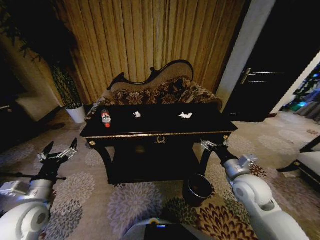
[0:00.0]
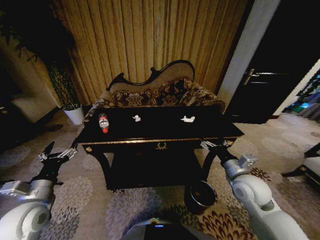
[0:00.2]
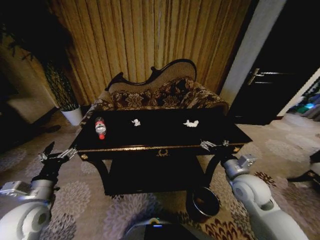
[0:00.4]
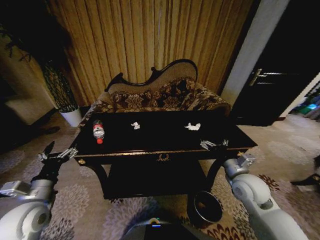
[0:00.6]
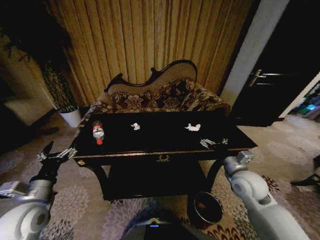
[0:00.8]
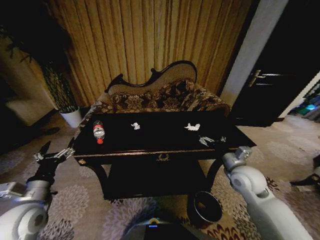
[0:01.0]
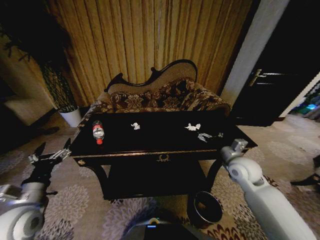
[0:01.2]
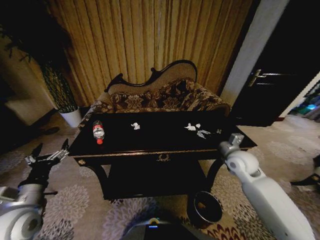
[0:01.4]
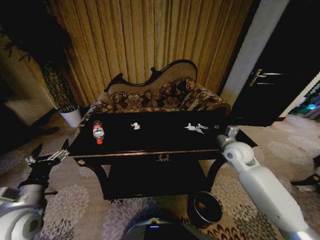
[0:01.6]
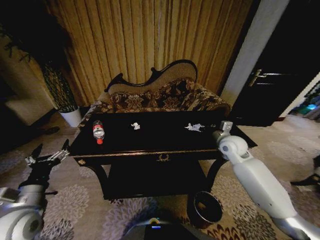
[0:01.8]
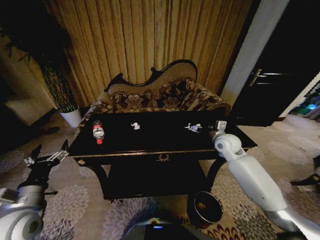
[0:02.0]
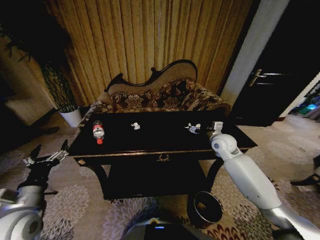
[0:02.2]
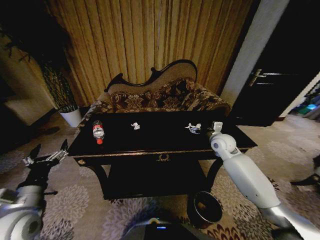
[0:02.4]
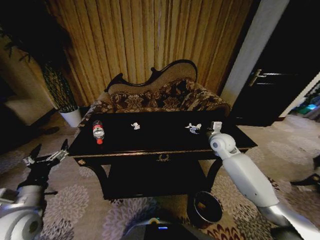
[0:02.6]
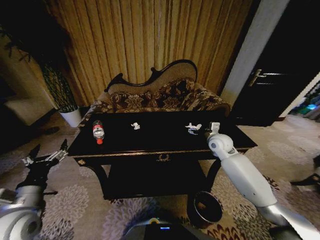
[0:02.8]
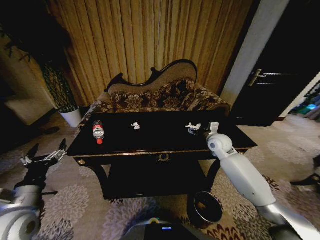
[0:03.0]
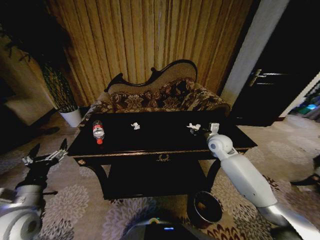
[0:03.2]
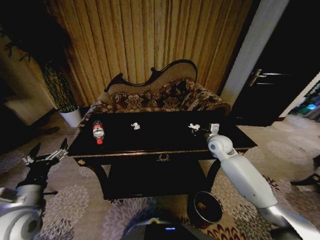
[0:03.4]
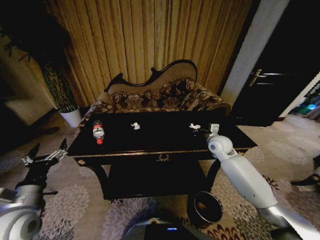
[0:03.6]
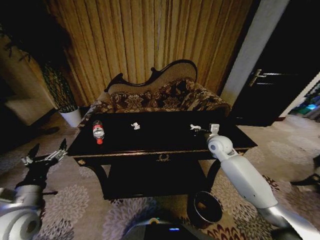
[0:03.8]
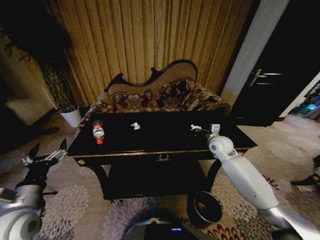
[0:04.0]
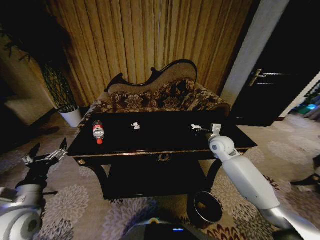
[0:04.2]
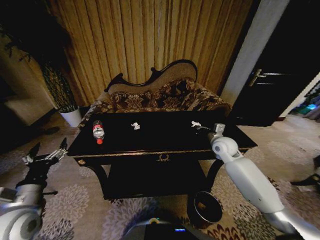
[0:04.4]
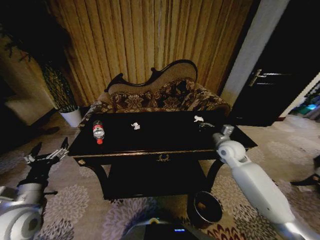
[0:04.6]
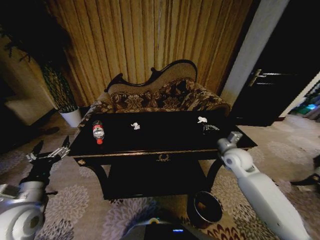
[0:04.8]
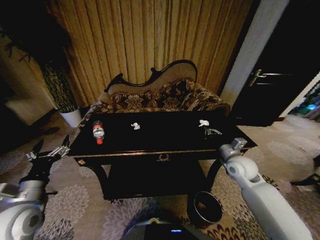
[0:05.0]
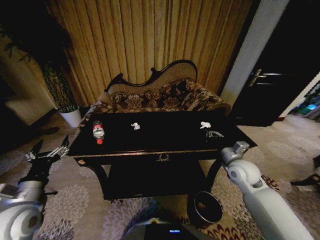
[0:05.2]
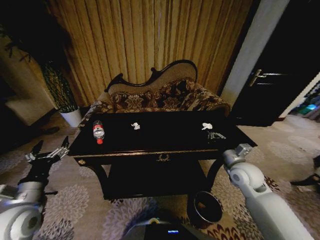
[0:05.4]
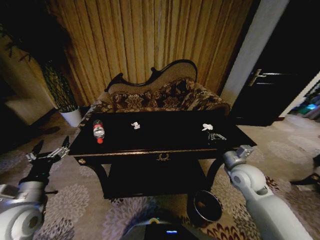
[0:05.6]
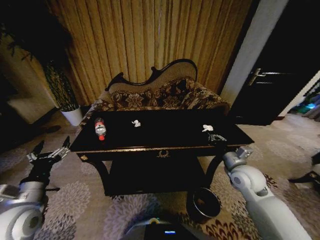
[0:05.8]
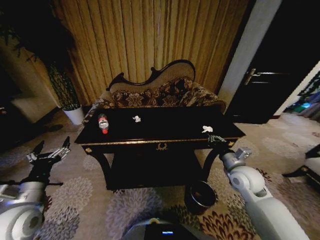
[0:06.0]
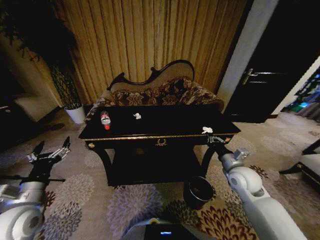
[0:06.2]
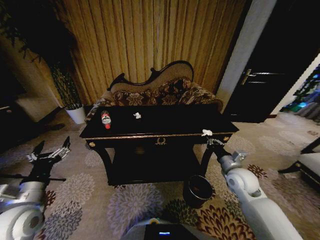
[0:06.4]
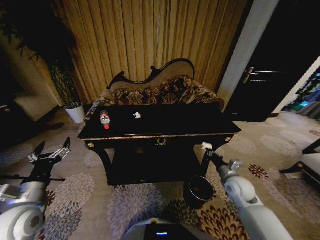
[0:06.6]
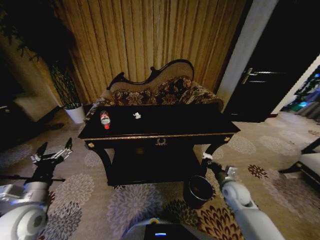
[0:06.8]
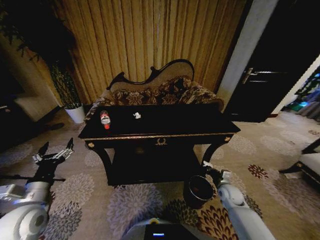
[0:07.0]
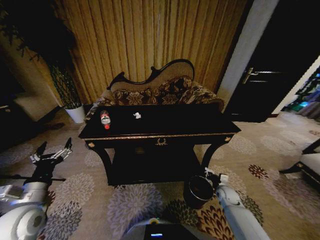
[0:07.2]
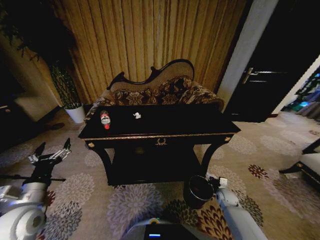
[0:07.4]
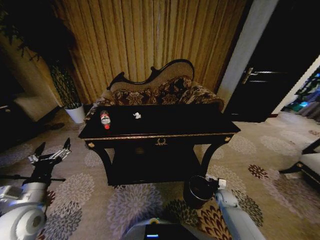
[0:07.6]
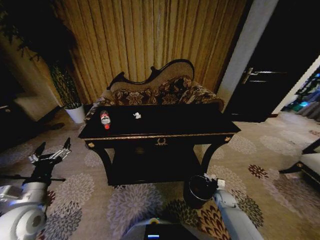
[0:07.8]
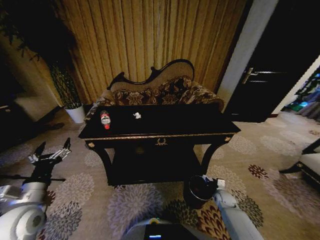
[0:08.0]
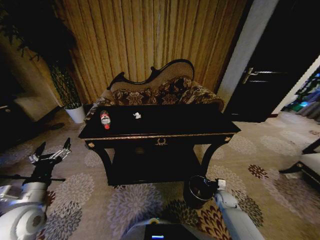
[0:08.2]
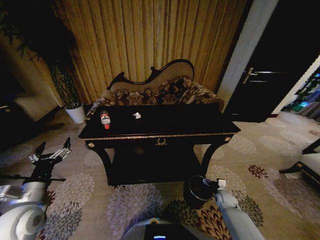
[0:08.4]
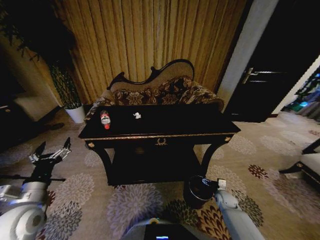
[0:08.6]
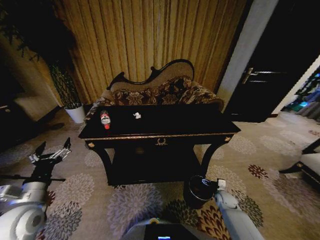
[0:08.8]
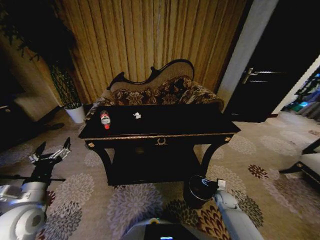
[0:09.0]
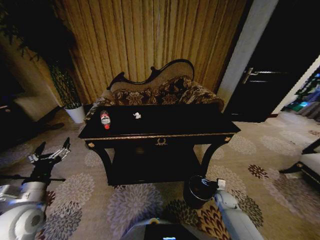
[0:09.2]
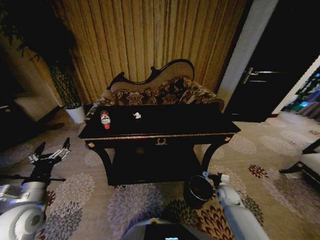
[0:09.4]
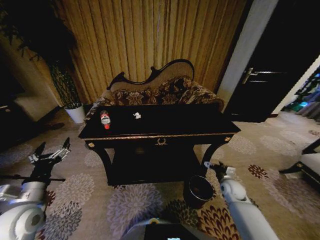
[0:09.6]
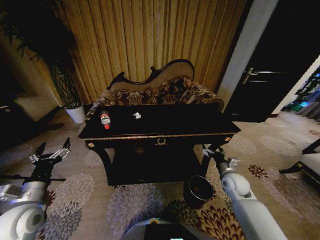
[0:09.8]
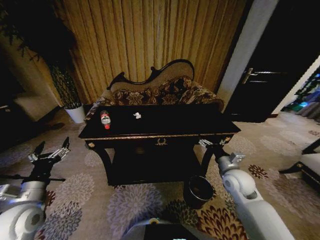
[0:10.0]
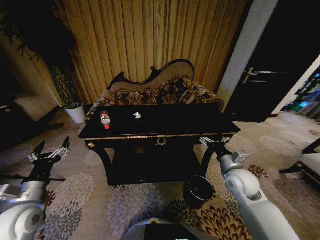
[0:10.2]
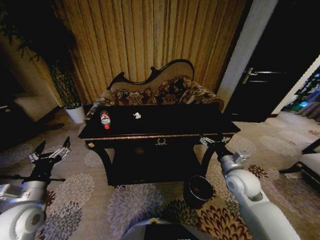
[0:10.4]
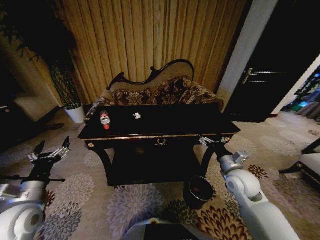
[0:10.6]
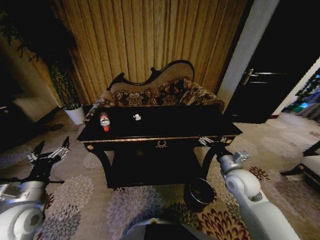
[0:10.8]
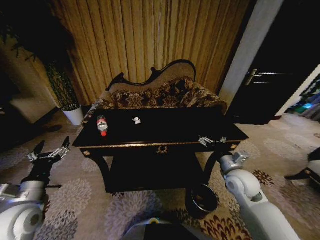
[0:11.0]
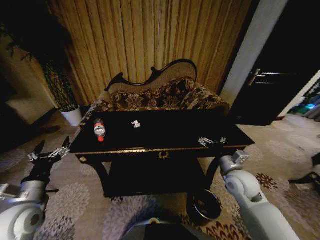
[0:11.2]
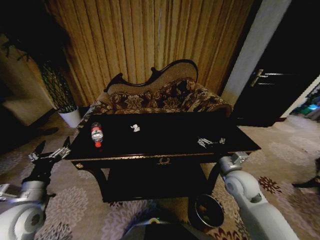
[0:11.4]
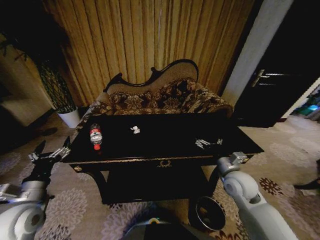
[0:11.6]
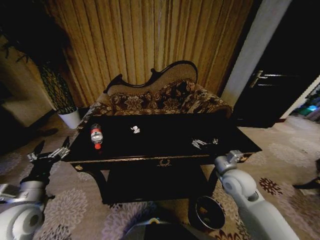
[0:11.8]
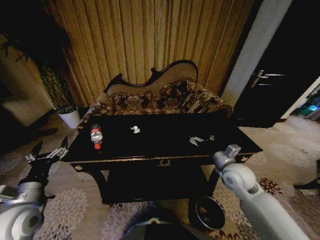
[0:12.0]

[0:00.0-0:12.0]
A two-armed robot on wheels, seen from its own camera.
Task of the whole recording: Move to the front of the table and place the trash on the table into the trash bin.
0:00.0 to 0:01.6: The right gripper goes some 15 cm forward.
0:01.6 to 0:03.0: The right gripper is displaced forward by approximately 5 cm.
0:03.0 to 0:04.4: The right gripper closes its fingers.
0:04.4 to 0:06.0: The right gripper moves backward, about 15 cm.
0:06.0 to 0:07.6: The right gripper goes approximately 30 cm downward.
0:09.0 to 0:10.4: The right gripper is displaced upward by roughly 25 cm.

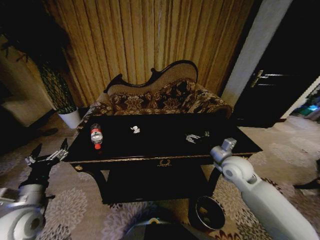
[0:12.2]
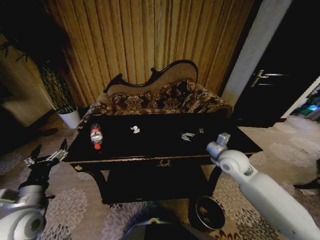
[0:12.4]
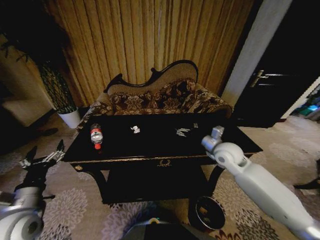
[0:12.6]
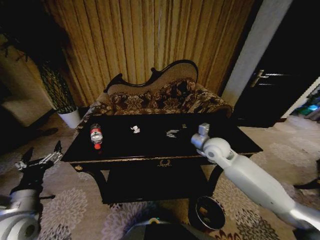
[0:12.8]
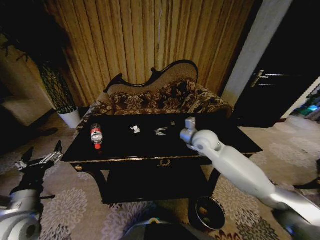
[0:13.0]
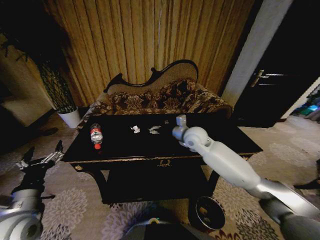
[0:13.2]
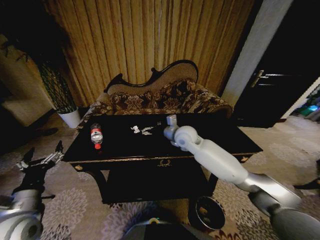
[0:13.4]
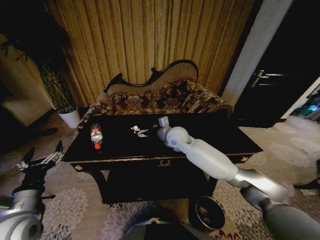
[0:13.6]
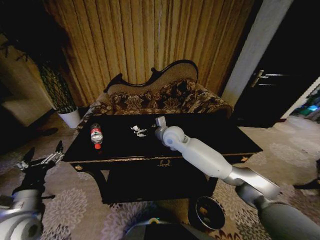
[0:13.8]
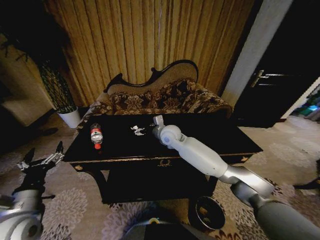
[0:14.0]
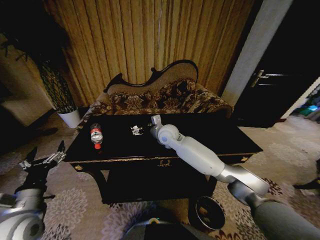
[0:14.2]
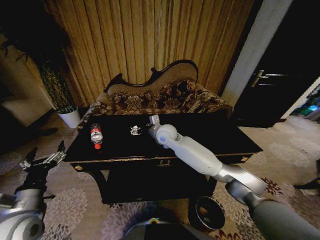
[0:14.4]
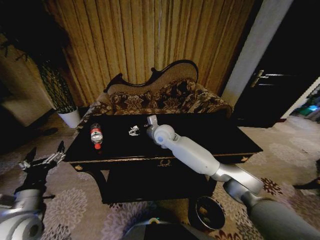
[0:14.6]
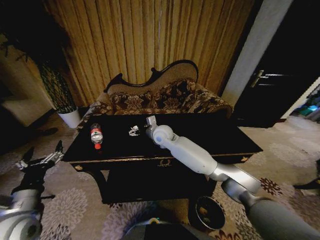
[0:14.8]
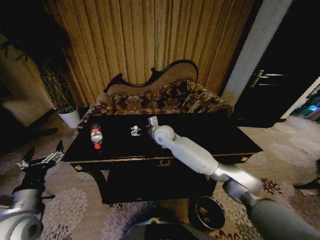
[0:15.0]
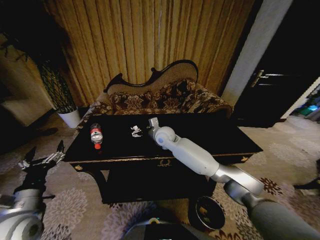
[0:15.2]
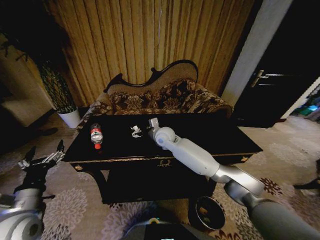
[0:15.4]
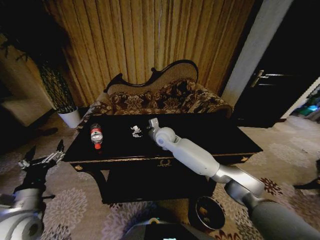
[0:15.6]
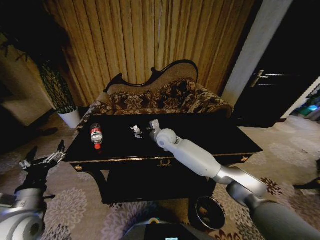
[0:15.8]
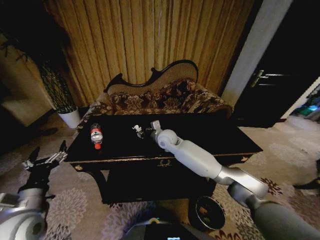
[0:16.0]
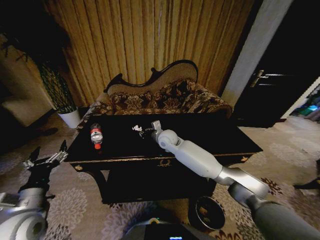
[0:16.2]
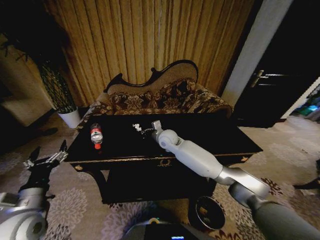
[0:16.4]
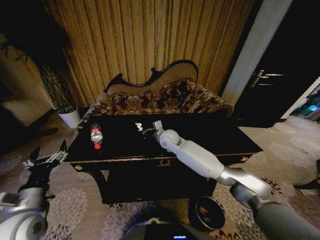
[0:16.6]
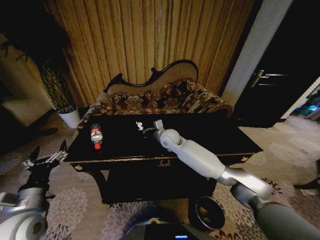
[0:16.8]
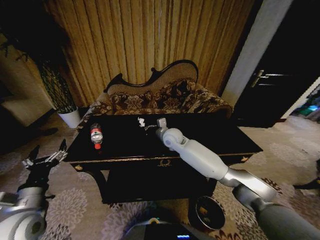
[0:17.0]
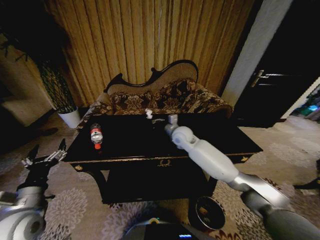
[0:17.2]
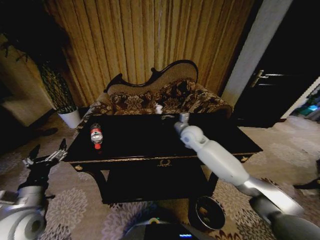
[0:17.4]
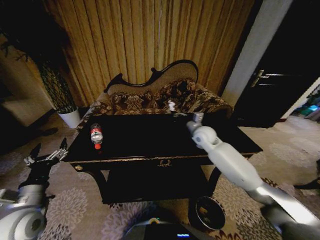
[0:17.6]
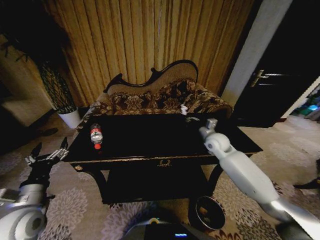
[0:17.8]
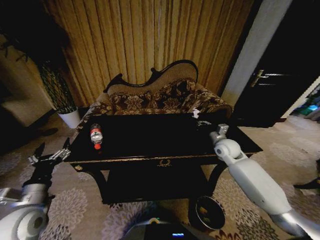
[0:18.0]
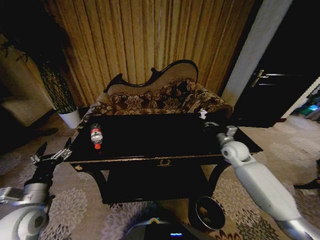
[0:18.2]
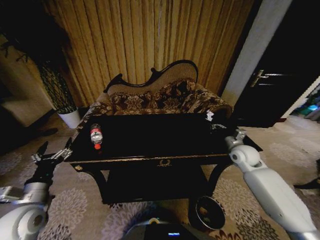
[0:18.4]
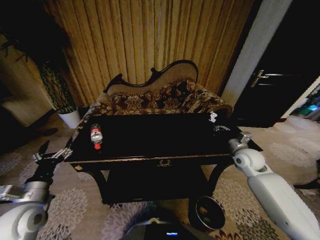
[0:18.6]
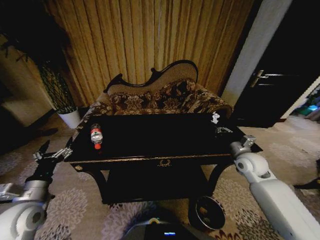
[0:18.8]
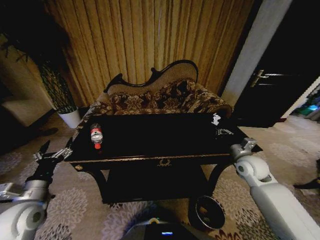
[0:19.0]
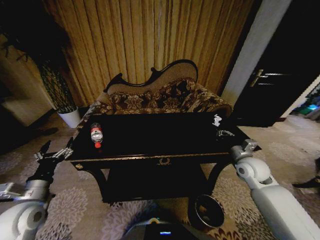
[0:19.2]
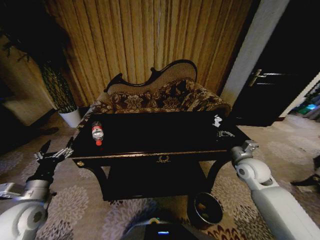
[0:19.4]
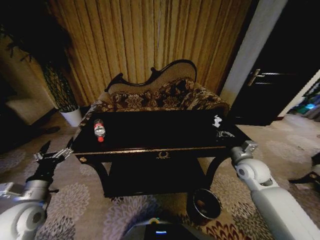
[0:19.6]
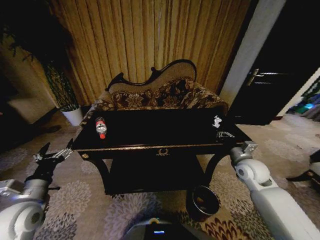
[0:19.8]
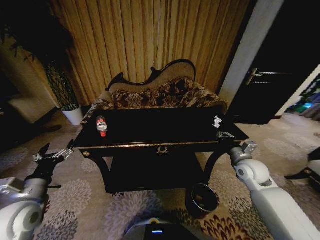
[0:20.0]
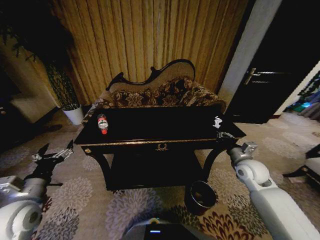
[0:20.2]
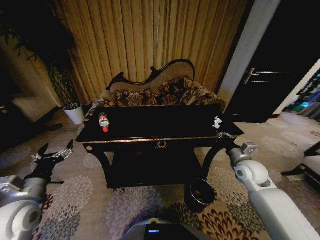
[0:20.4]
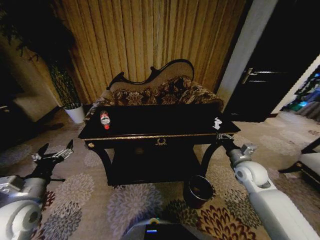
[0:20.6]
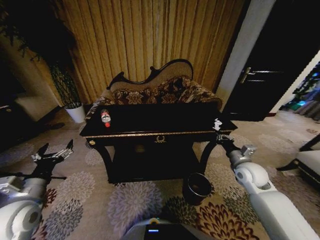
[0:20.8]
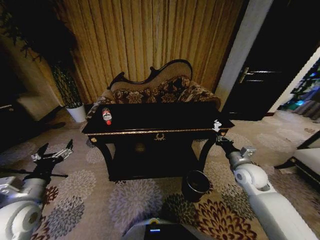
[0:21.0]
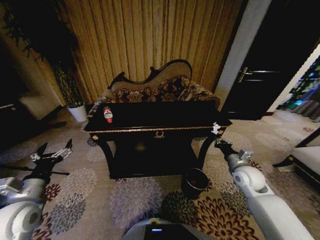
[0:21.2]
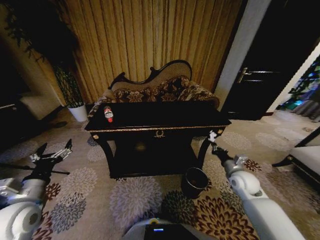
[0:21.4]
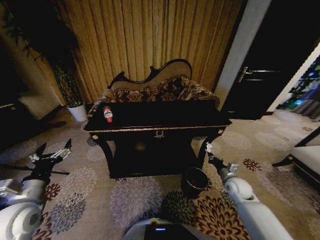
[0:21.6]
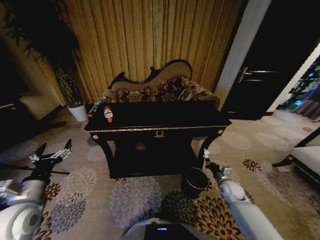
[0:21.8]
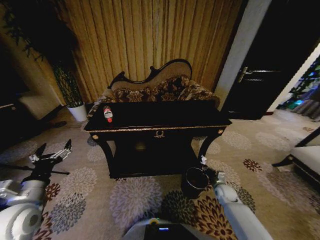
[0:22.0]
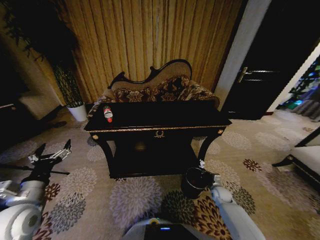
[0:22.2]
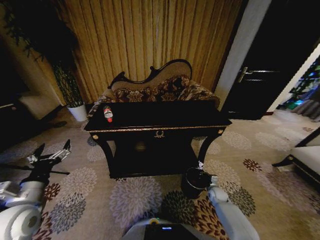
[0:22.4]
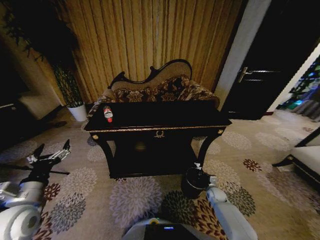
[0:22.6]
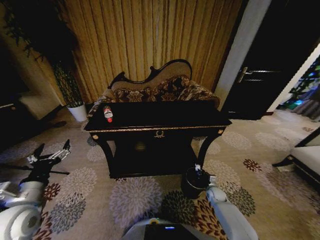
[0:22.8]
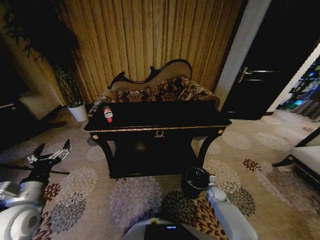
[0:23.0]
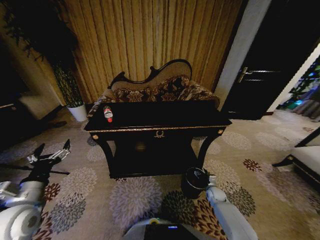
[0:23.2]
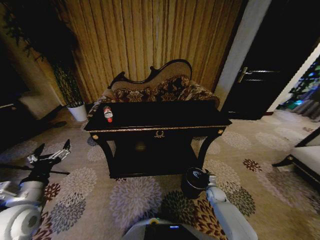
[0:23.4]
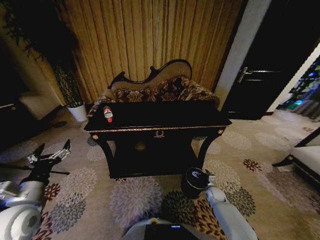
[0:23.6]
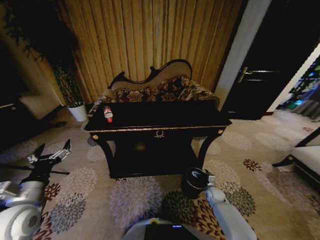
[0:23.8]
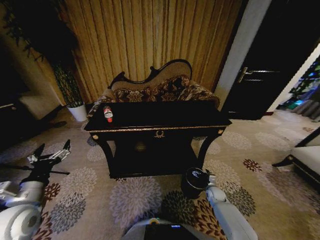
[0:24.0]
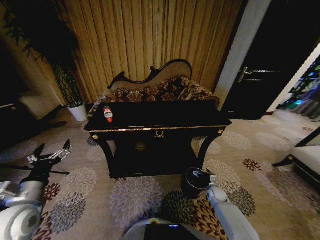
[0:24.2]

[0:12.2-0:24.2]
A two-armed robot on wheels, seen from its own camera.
Task of the whole recording: Move to the front of the table and place the trash on the table into the trash bin.
0:12.2 to 0:13.8: The right gripper moves to the left and forward, about 25 cm.
0:13.8 to 0:15.2: There are only small adjustments of the grippers.
0:15.2 to 0:16.6: The right gripper closes its fingers.
0:16.6 to 0:18.2: The right gripper goes about 30 cm to the right.
0:18.2 to 0:19.8: The right gripper moves backward, about 10 cm.
0:21.2 to 0:22.6: The right gripper goes roughly 25 cm downward.
